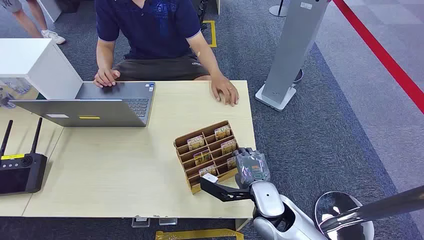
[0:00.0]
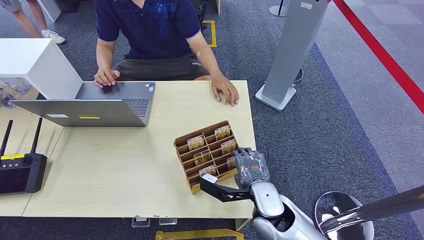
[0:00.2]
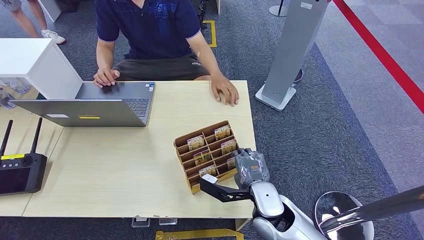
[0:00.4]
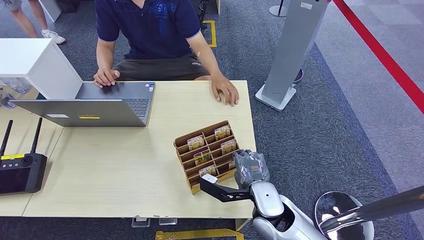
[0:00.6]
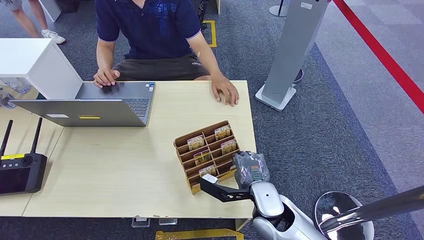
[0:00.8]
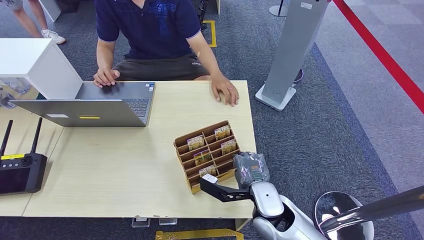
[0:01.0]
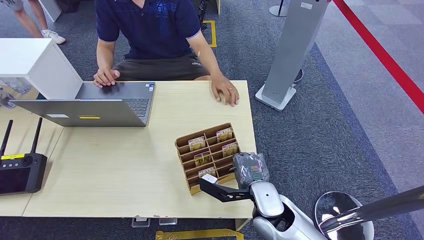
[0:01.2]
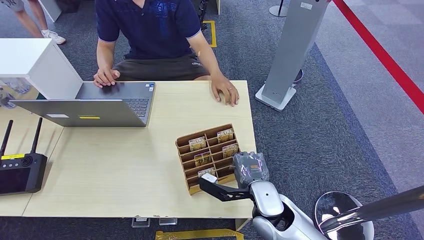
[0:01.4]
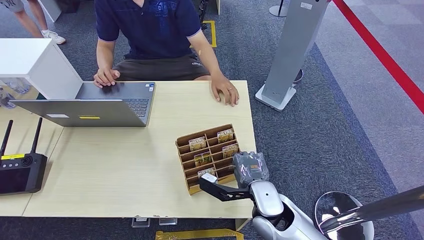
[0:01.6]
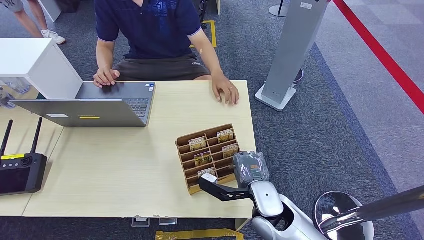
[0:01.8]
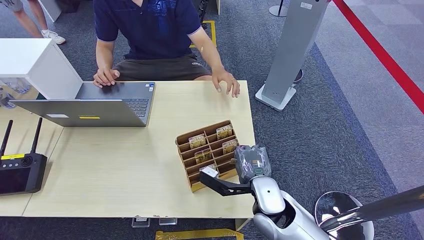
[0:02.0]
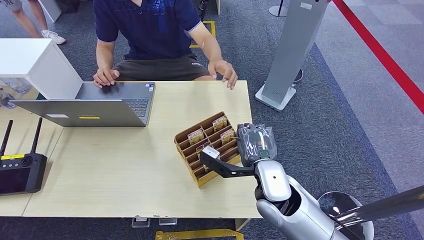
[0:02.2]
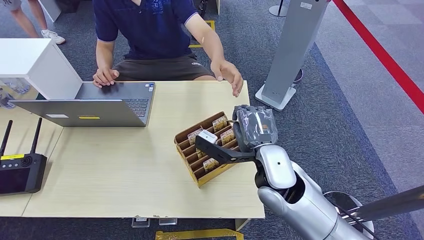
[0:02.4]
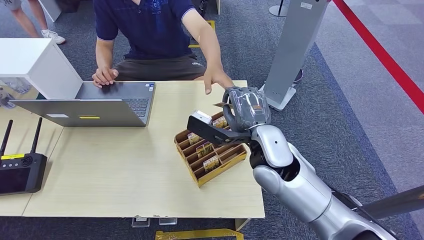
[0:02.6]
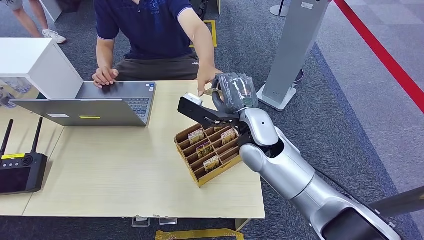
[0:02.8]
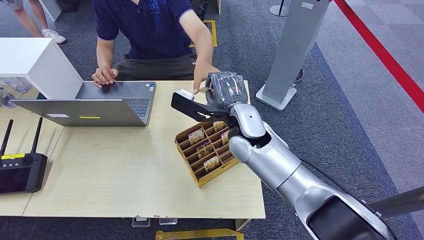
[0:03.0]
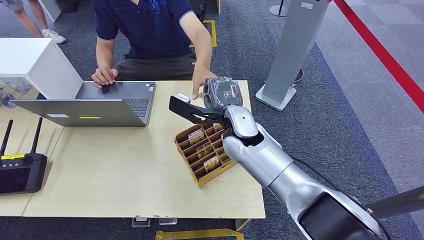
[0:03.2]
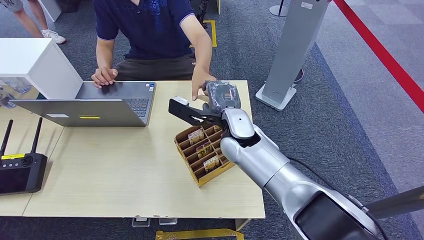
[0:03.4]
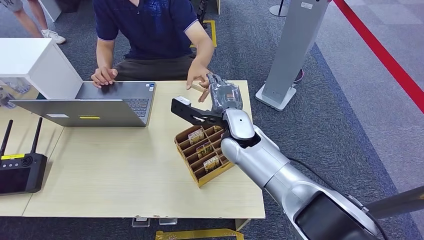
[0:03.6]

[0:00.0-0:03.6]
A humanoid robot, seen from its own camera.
Step, 0:00.0 to 0:02.4: Pick up the room card from the card holder.
Step, 0:02.8 to 0:03.6: Hand the room card to the target.
0:01.8 to 0:03.6: The right hand is displaced forward, upward and to the left by approximately 15 cm.
